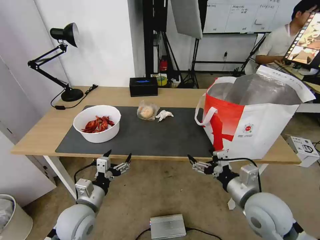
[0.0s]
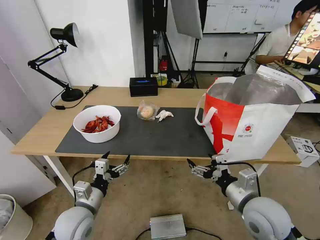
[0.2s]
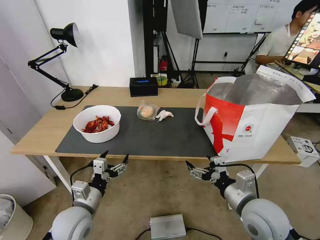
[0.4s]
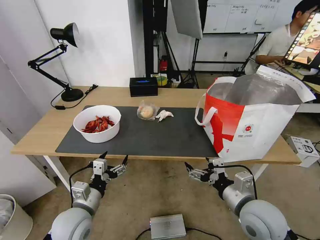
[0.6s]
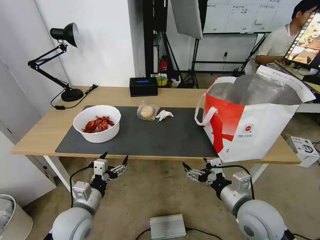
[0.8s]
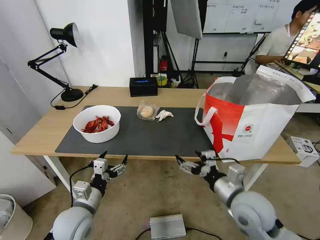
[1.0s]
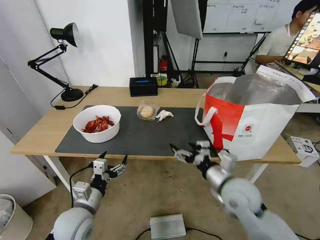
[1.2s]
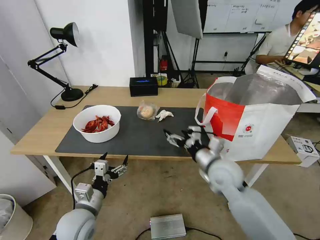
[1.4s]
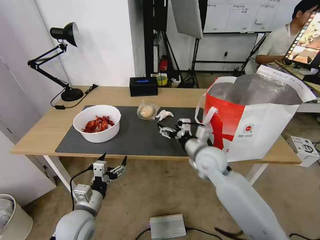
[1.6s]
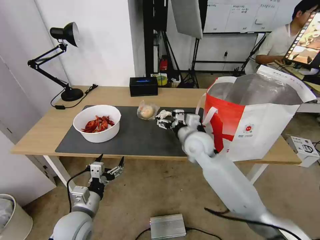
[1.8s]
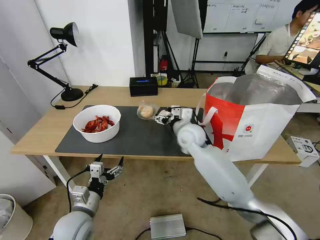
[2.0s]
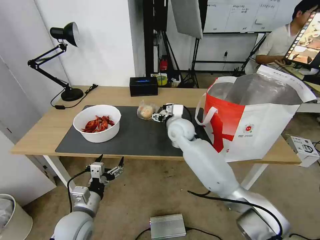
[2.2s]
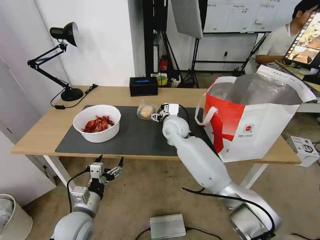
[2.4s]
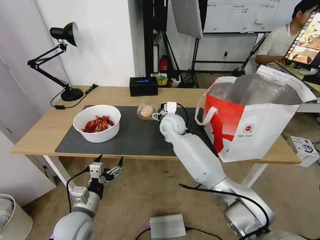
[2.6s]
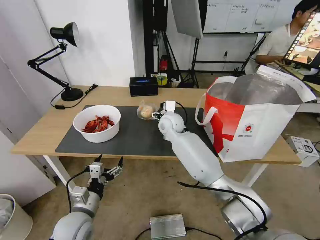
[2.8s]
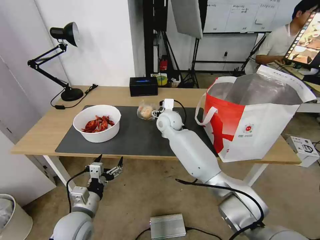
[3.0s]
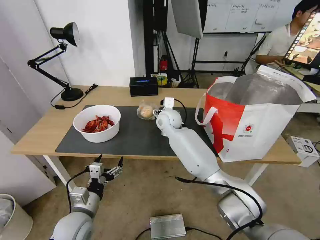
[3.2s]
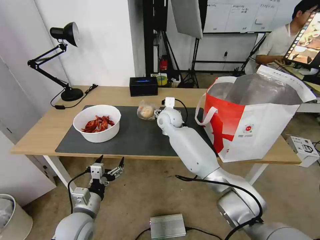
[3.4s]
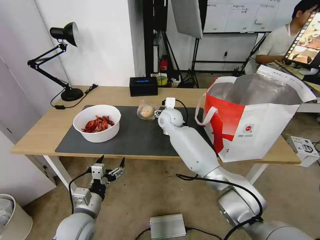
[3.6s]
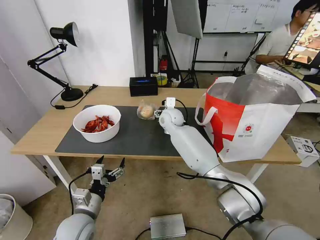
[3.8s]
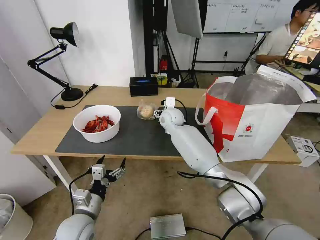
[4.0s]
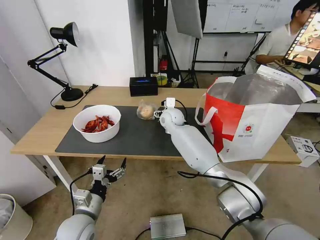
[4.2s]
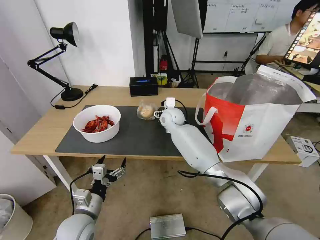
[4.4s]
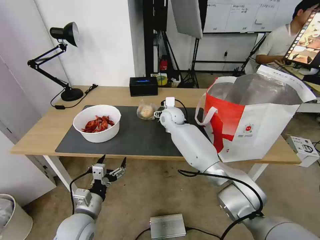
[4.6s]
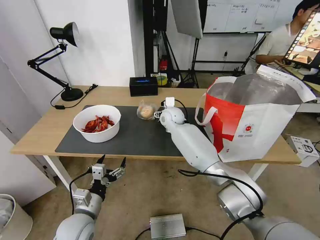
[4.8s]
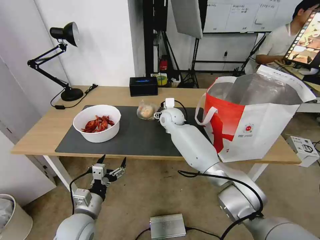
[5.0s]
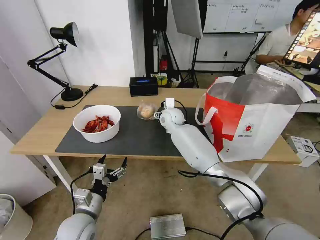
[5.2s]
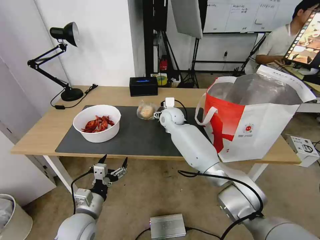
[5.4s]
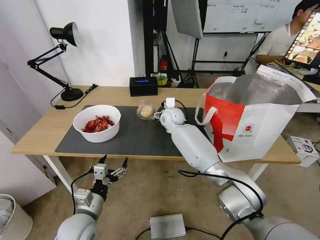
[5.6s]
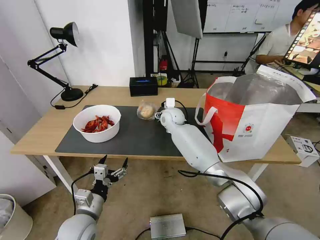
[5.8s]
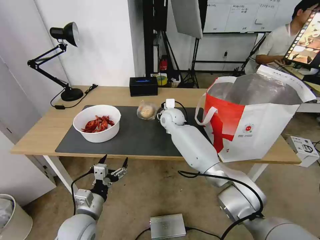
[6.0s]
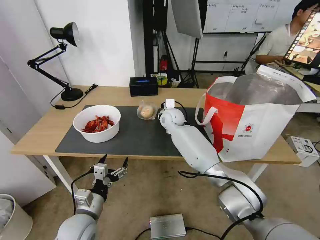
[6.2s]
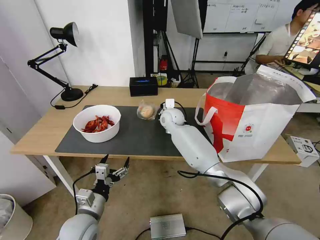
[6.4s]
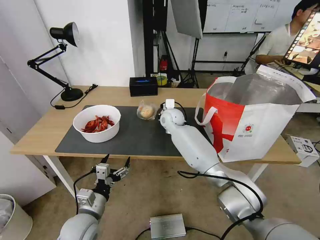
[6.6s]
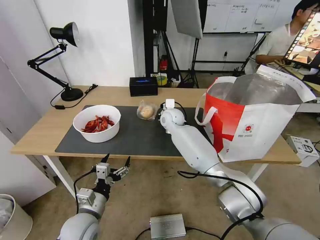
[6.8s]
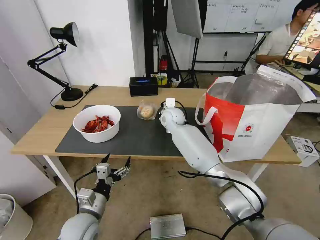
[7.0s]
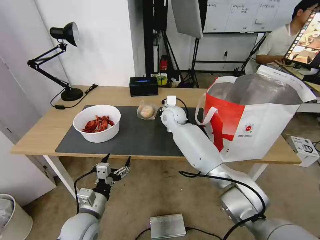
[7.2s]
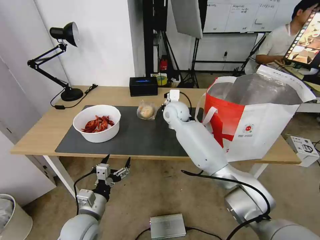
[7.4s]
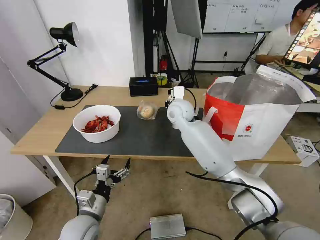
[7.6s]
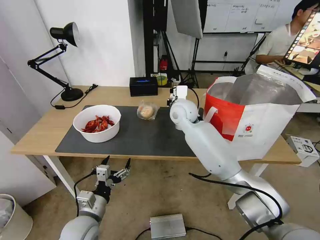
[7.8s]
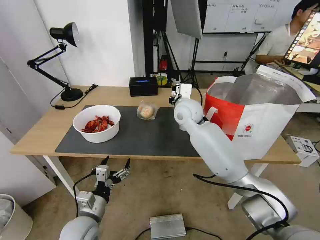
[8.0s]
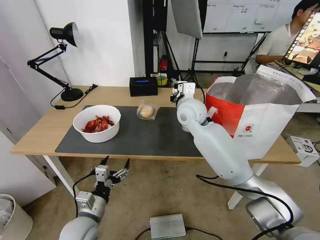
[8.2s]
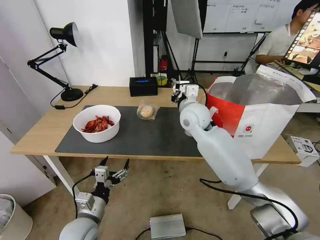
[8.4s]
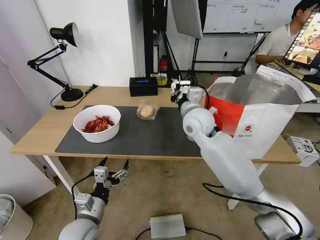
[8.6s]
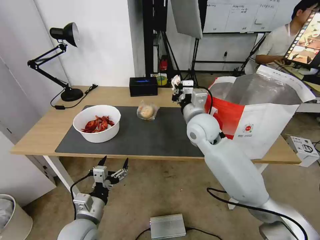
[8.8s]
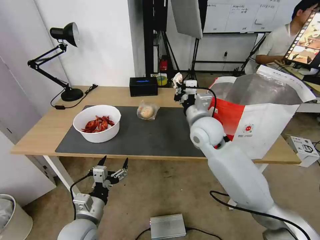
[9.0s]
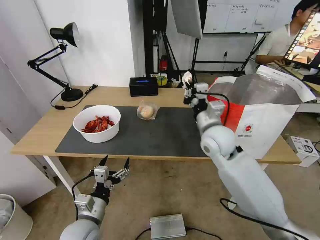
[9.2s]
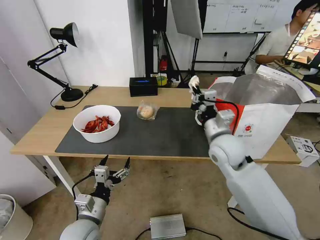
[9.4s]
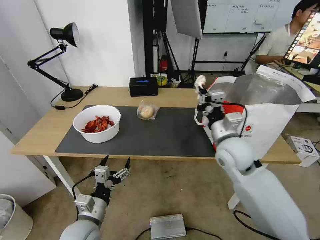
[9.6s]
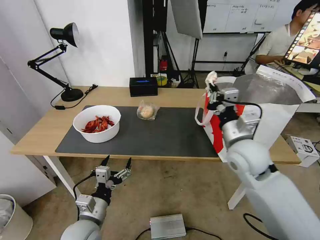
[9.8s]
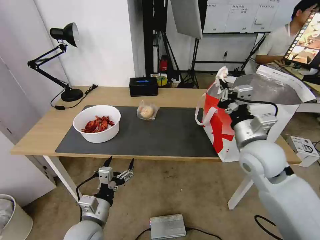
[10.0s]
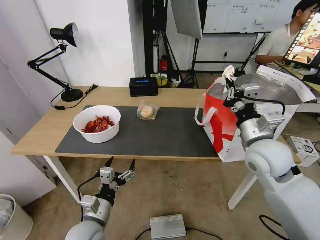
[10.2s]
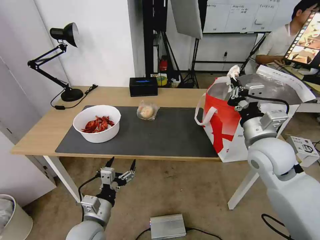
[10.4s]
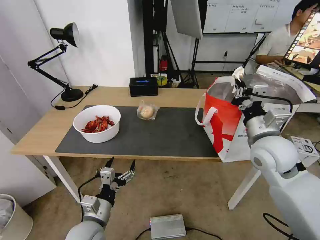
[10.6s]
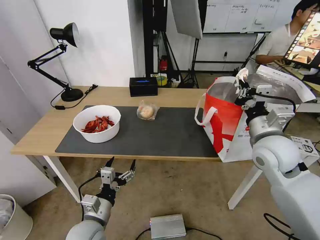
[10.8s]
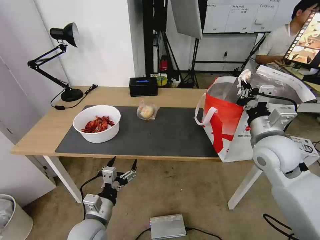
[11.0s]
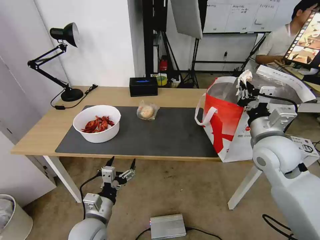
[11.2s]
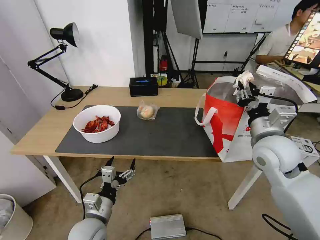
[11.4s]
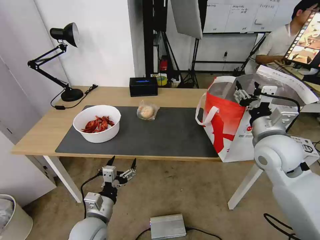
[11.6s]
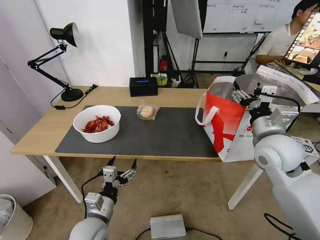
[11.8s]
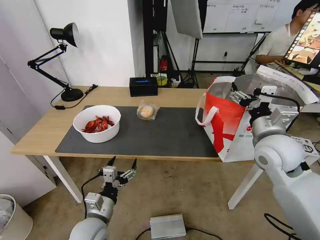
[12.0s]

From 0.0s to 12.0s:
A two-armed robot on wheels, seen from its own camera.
Task of the whole recording: Pick up the trash from the table and place it into the takeout bag.
From 0.0s to 1.6s: The right gripper heads forward and to the left, covering some 20 cm.
From 1.6s to 3.0s: The right gripper moves forward and to the left, some 20 cm.
From 3.0s to 4.4s: The grippers make only small movements.
From 4.4s to 6.0s: The two grippers keep their place.
From 6.0s to 7.6s: The right gripper goes roughly 5 cm upward, and closes its fingers.
From 7.6s to 9.0s: The right gripper goes some 15 cm backward and to the right.
From 9.0s to 10.4s: The right gripper heads to the right and backward, covering approximately 15 cm.
From 10.4s to 12.0s: The right gripper opens its fingers.

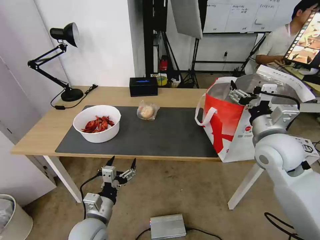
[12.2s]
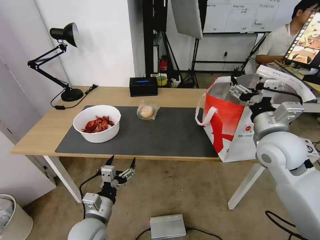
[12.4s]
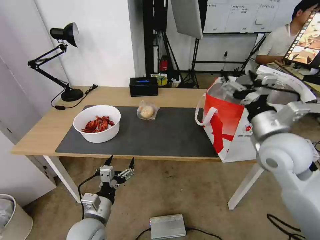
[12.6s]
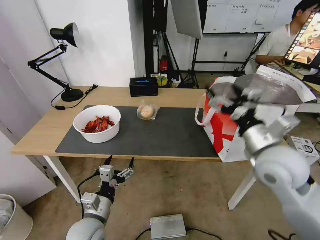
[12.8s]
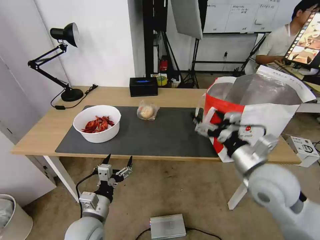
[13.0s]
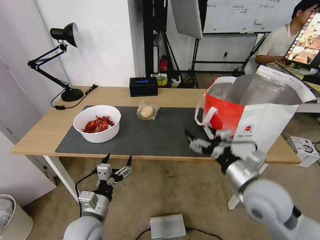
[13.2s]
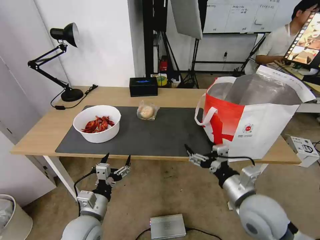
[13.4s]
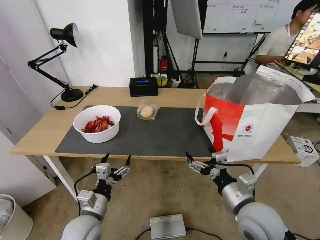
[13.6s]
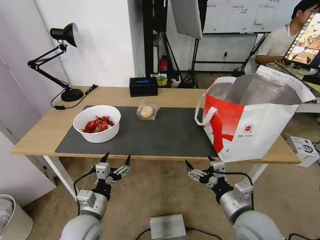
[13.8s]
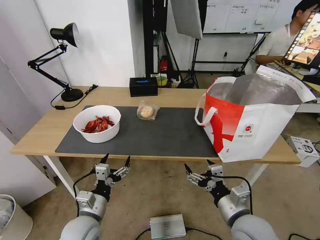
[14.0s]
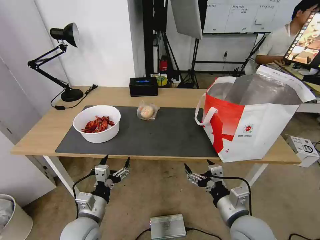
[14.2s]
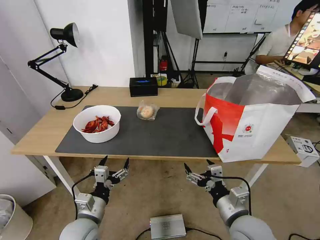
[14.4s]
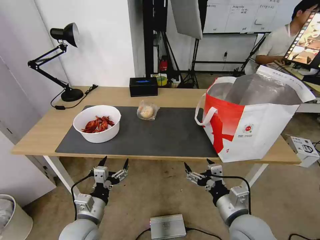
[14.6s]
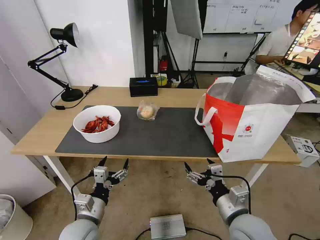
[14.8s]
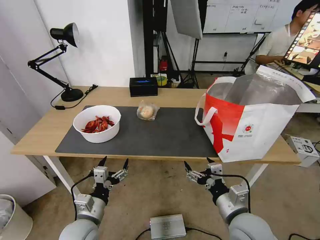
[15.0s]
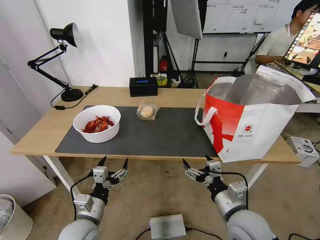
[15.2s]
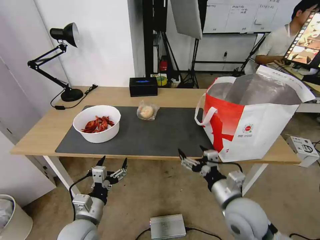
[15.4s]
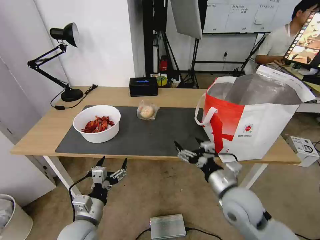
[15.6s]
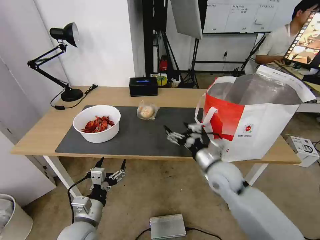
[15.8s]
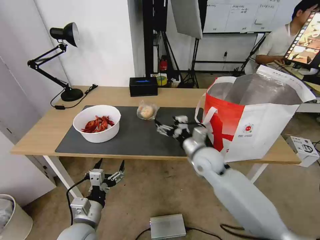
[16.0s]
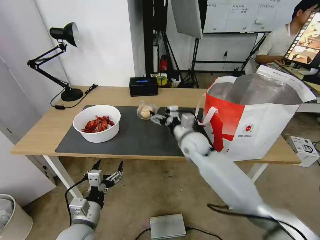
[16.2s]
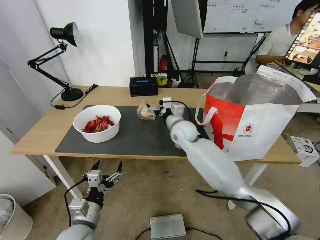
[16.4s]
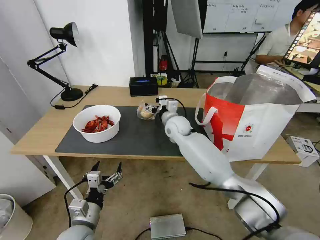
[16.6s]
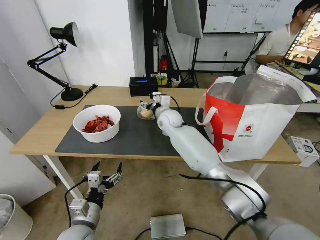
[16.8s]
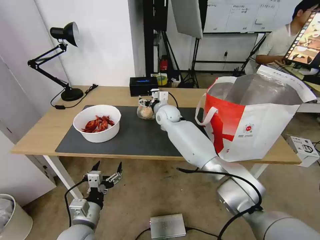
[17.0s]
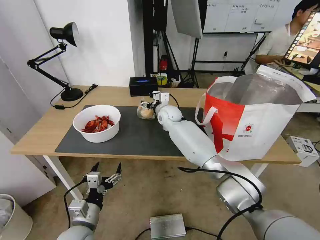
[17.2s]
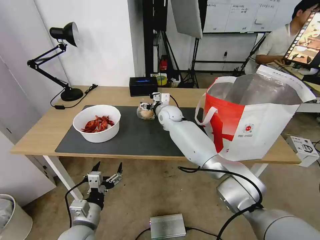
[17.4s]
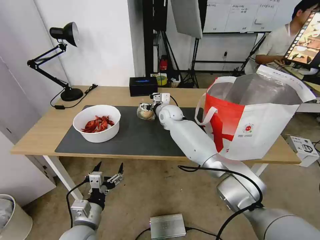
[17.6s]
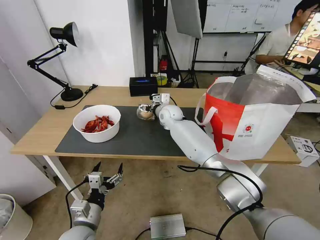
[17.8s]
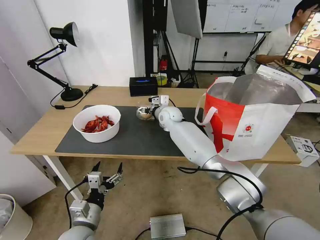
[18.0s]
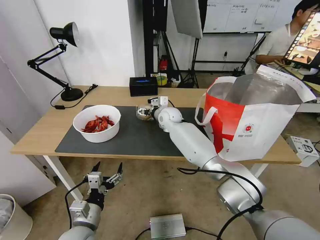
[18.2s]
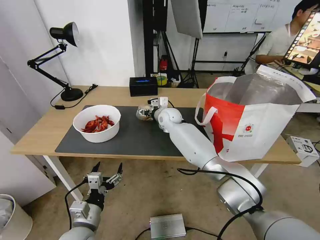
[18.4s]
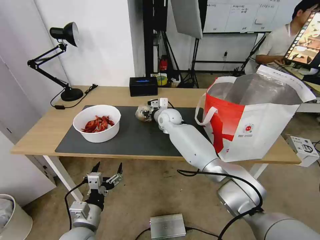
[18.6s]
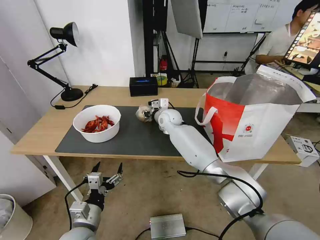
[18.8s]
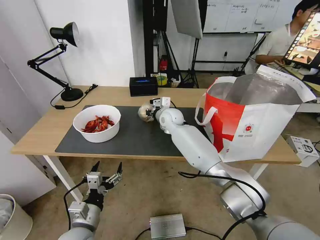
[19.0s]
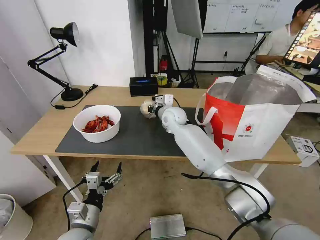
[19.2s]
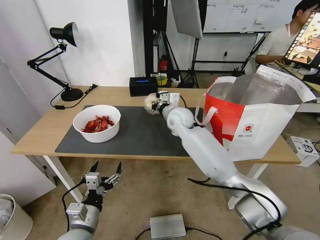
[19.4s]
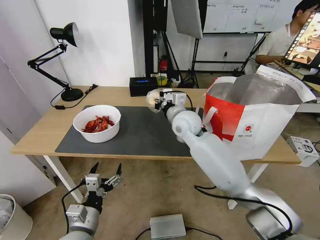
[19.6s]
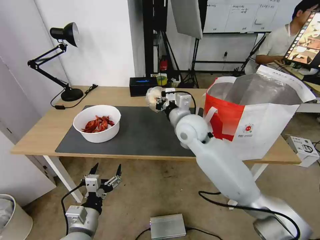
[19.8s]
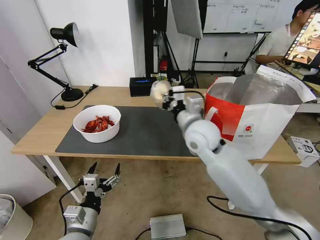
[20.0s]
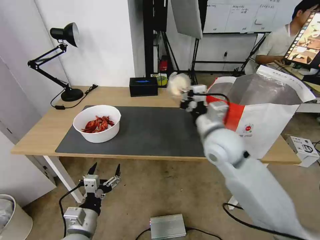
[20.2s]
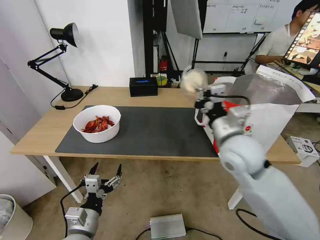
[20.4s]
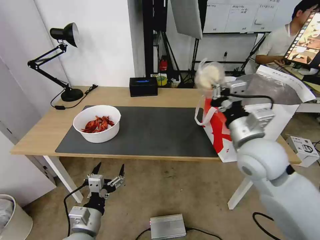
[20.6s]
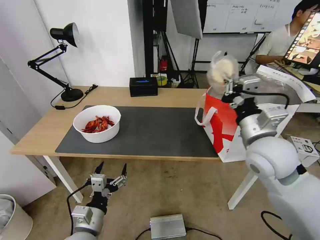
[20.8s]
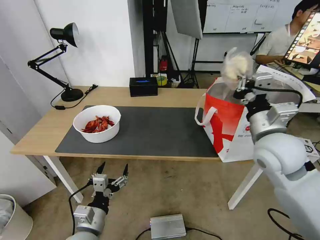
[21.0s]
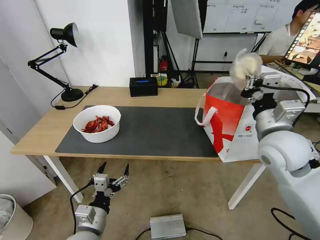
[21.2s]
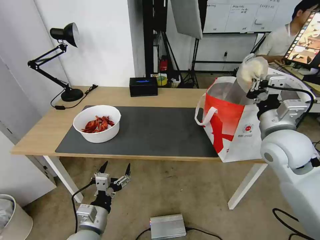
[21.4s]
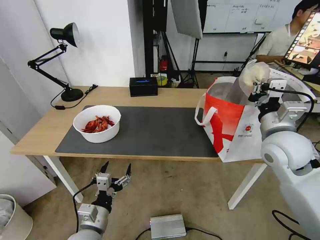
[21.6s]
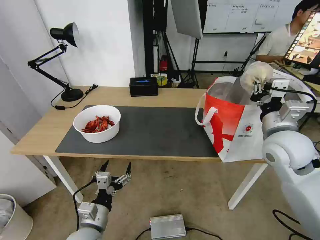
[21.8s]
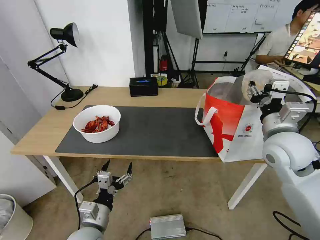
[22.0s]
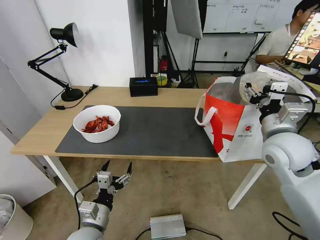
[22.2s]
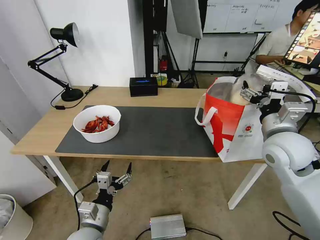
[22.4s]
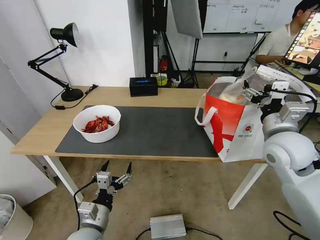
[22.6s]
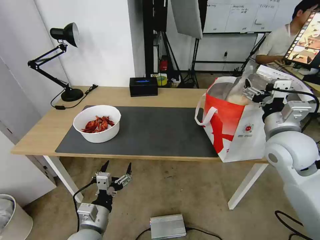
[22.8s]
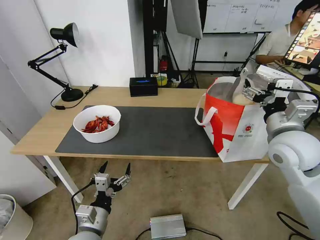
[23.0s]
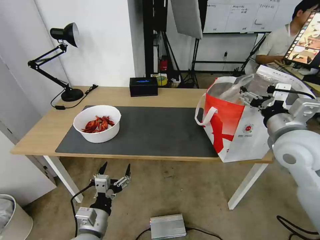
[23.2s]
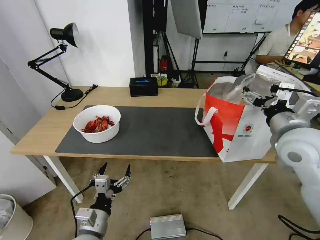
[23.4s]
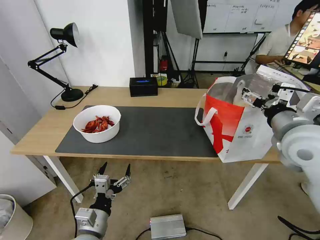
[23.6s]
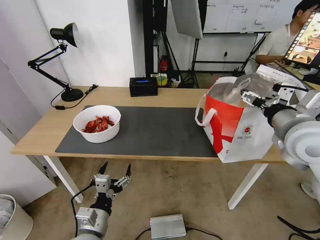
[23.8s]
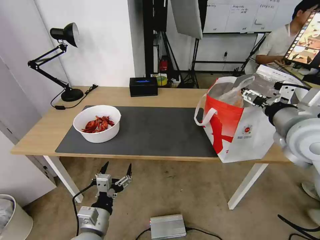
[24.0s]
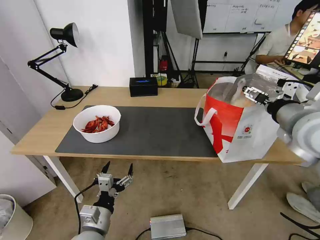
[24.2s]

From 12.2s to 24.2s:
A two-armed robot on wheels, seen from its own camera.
Task of the whole recording: Pick up the trash from the table and place it into the takeout bag.
From 12.2s to 13.8s: The right gripper is displaced backward, downward and to the left by roughly 20 cm.
From 13.8s to 15.2s: There are only small adjustments of the grippers.
From 15.2s to 16.6s: The right gripper is displaced forward and to the left by about 35 cm.
From 16.6s to 18.2s: The right gripper goes approximately 5 cm forward.
From 18.2s to 19.8s: The right gripper moves backward and upward, some 20 cm, and closes its fingers.
From 19.8s to 21.2s: The right gripper moves to the right and backward, about 20 cm.
From 21.2s to 22.6s: The right gripper opens up.
From 22.6s to 24.2s: The right gripper is displaced upward by some 10 cm.
